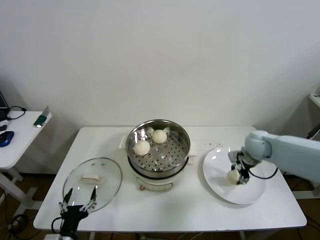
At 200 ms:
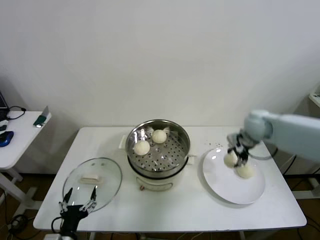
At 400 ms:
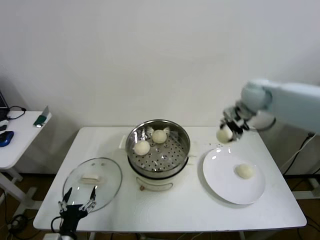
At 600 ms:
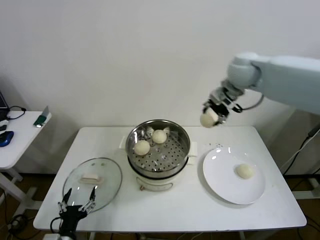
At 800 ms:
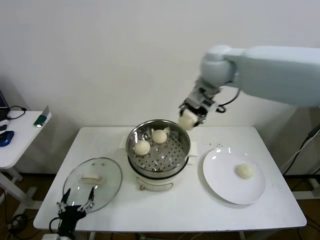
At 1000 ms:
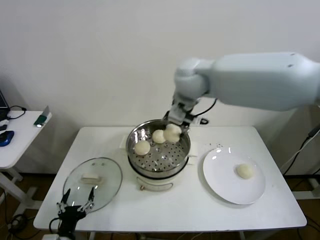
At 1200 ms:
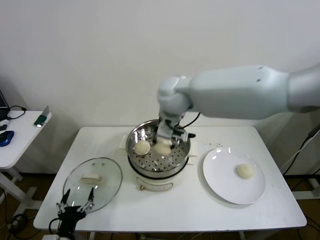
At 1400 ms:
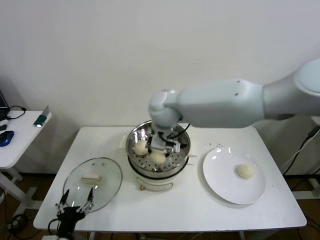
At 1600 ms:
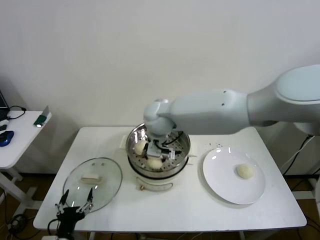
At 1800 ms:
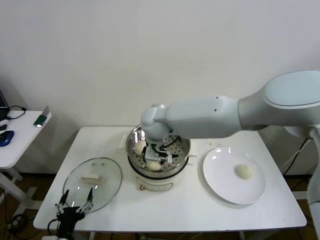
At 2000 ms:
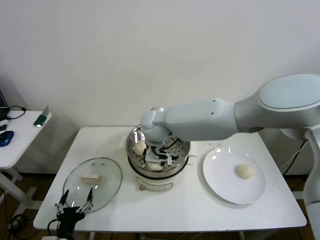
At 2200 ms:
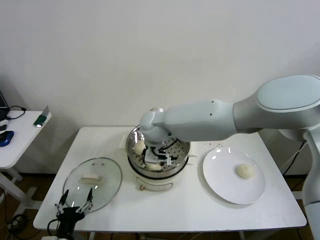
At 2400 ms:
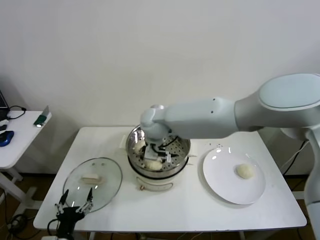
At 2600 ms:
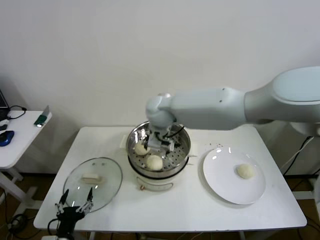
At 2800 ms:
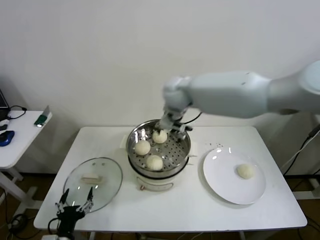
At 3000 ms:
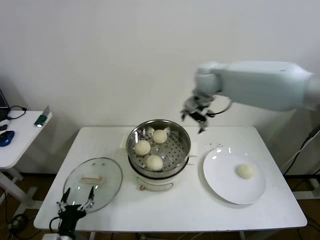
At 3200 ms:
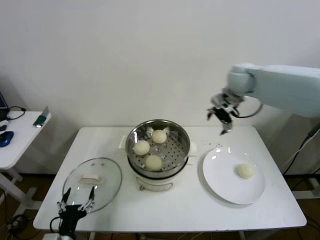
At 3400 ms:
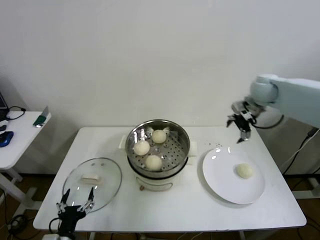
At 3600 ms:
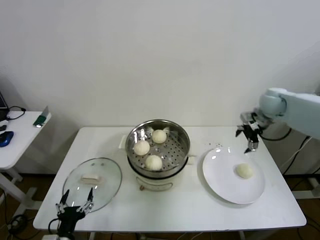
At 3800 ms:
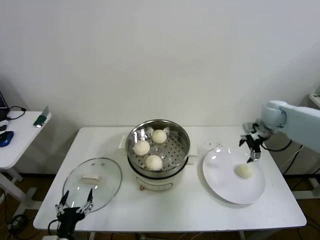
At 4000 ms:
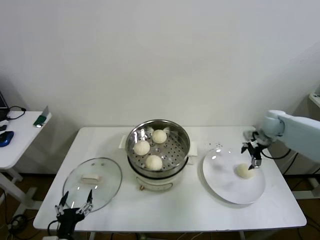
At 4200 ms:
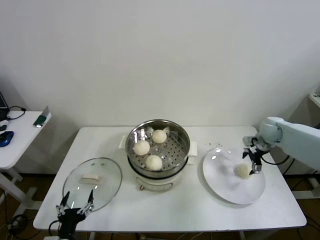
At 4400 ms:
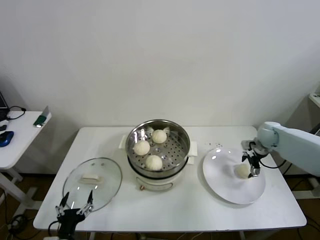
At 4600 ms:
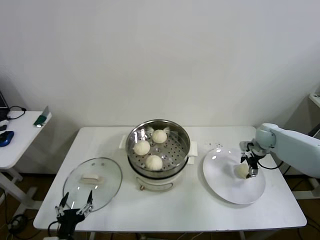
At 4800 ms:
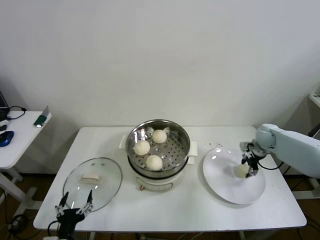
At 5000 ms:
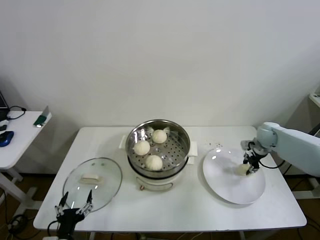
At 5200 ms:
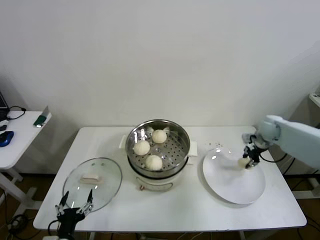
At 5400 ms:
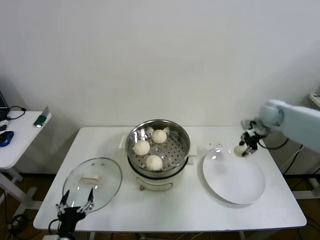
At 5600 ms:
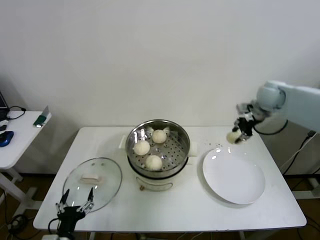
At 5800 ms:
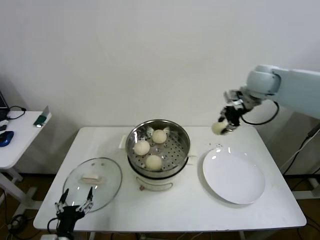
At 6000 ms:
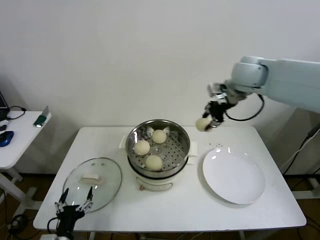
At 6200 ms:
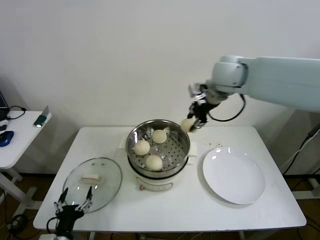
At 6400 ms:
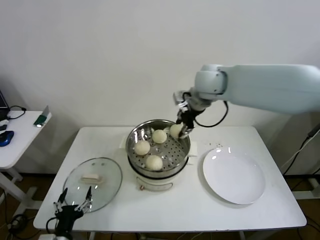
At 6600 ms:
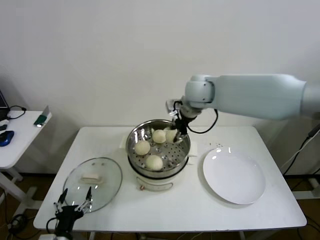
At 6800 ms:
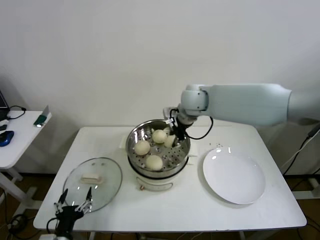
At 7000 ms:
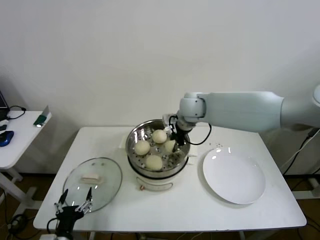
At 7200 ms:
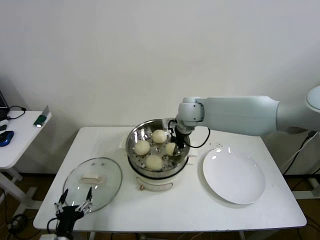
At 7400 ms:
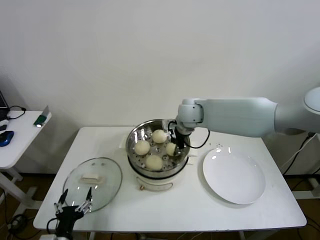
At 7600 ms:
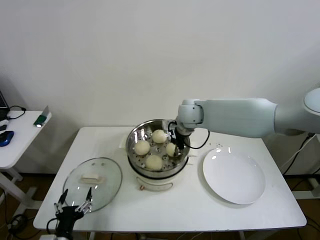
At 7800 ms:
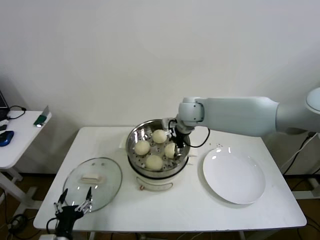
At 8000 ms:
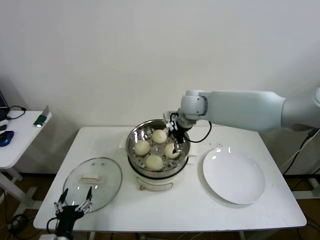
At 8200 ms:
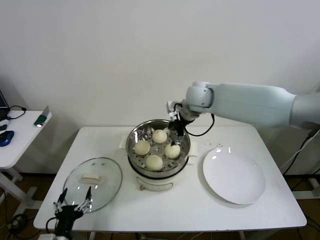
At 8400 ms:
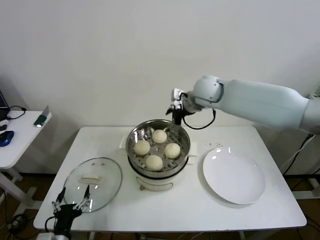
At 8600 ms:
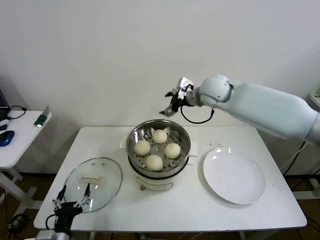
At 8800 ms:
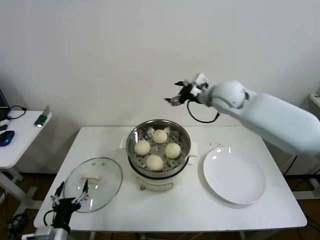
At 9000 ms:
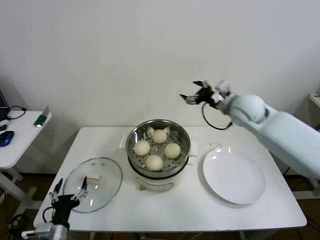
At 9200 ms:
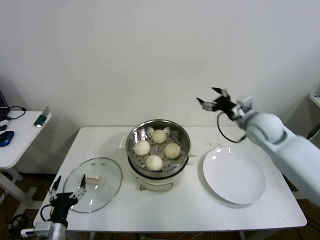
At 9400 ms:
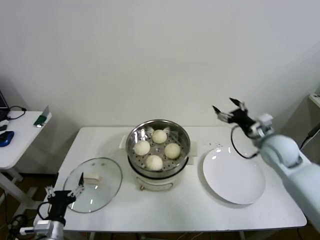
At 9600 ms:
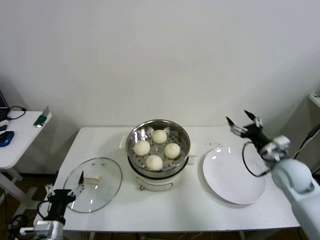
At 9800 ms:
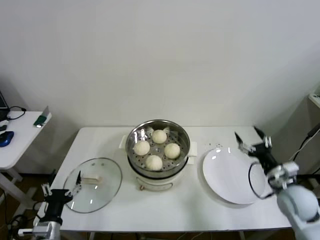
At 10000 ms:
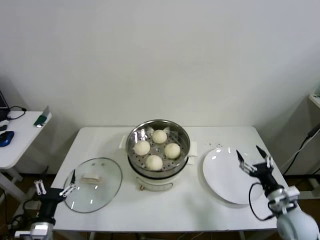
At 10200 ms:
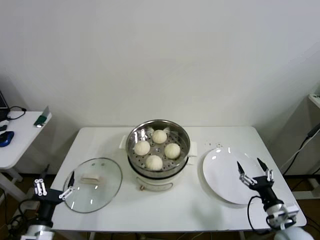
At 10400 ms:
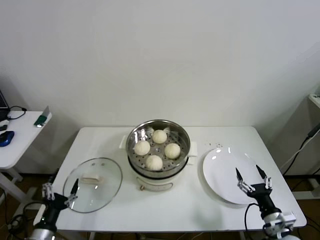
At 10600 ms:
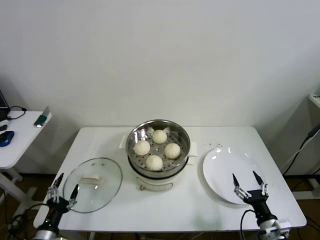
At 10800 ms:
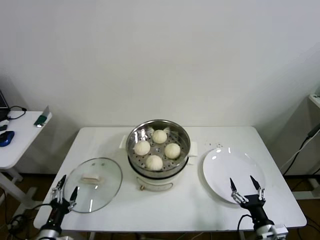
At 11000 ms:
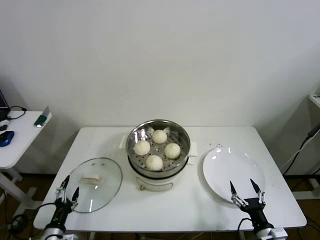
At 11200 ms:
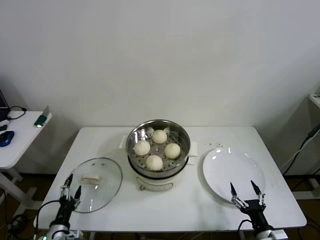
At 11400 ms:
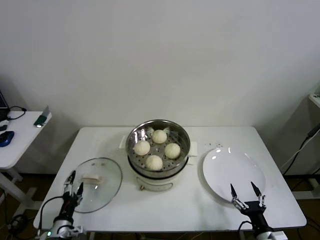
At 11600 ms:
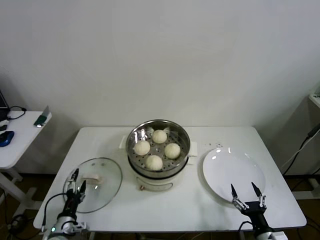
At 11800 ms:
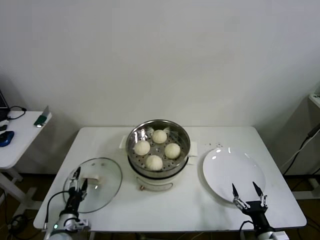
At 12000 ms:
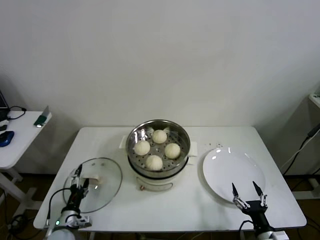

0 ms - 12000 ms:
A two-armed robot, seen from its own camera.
Step, 0 ms - 2400 ms: Place the baozi on the steamer with right gripper.
Step, 2600 ms - 4600 ms: Grasp the baozi in the plate with right gripper.
Step, 4800 ms - 7800 ms: Place the baozi on the steamer with right gripper.
0 ms - 1600 ms: The right gripper is displaced to the left by approximately 35 cm.
1600 ms - 3000 ms: The right gripper moves to the right, forward and upward, some 25 cm, and opens its fingers.
3000 ms - 4400 ms: The right gripper goes some 35 cm downward and to the right.
4400 ms - 6000 ms: The right gripper heads upward and to the left, covering some 35 cm, and closes.
6000 ms - 7600 ms: The right gripper shifts roughly 20 cm downward and to the left, and opens.
7600 ms - 9000 ms: The right gripper is displaced to the right by approximately 15 cm, and opens up.
9000 ms - 10400 ms: The right gripper is displaced backward and downward by some 40 cm. The left gripper heads to the left, covering about 5 cm.
10400 ms - 12000 ms: The left gripper shifts about 10 cm forward and downward; the right gripper moves roughly 5 cm.

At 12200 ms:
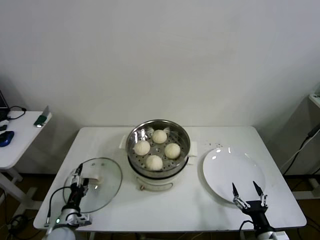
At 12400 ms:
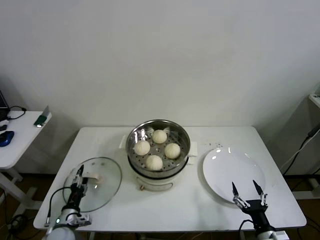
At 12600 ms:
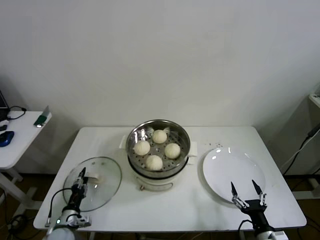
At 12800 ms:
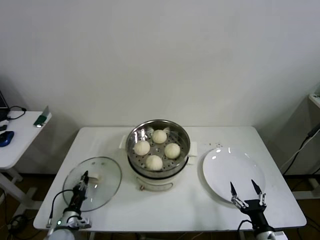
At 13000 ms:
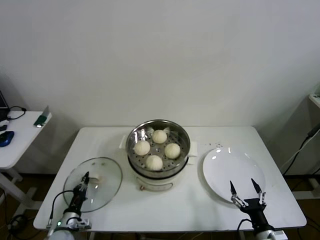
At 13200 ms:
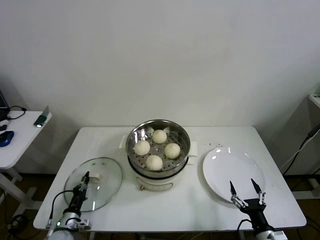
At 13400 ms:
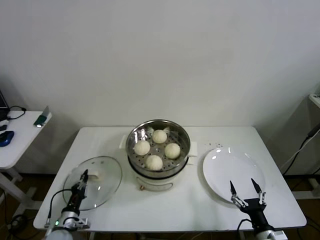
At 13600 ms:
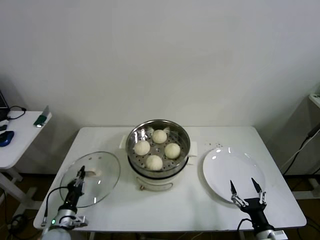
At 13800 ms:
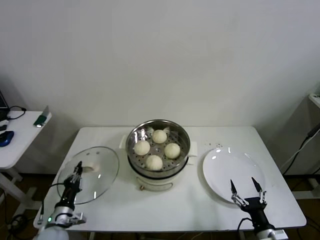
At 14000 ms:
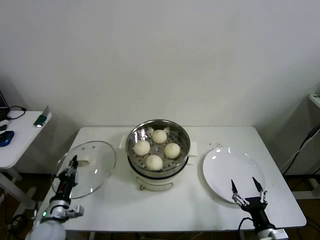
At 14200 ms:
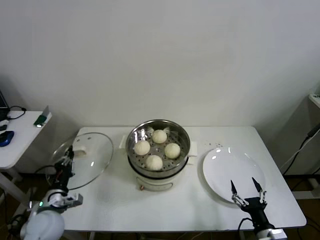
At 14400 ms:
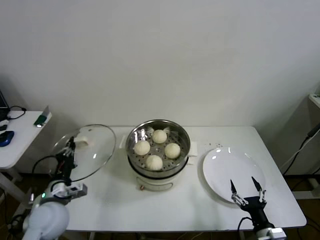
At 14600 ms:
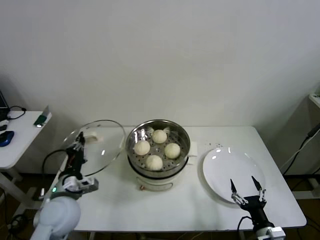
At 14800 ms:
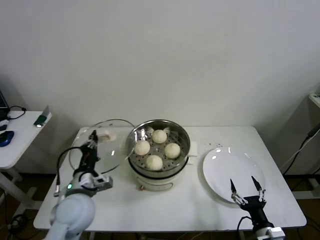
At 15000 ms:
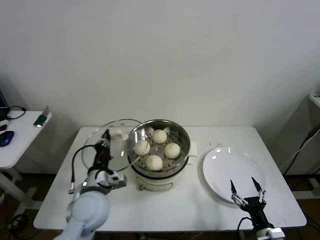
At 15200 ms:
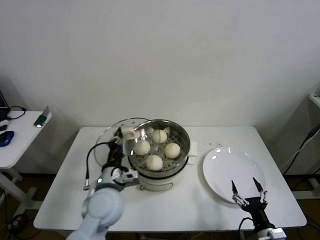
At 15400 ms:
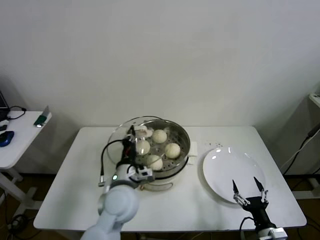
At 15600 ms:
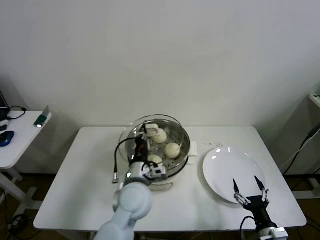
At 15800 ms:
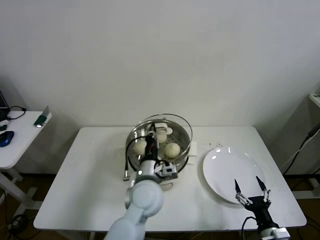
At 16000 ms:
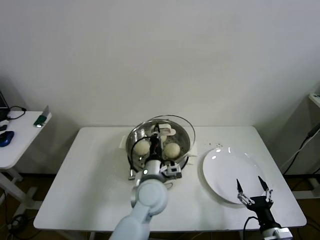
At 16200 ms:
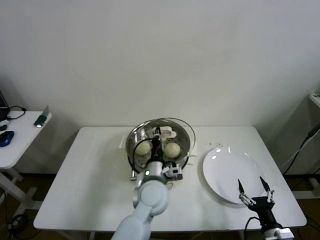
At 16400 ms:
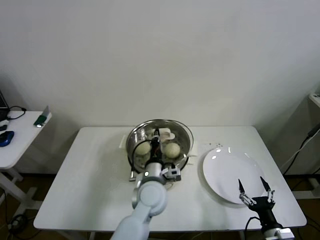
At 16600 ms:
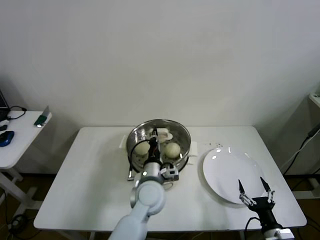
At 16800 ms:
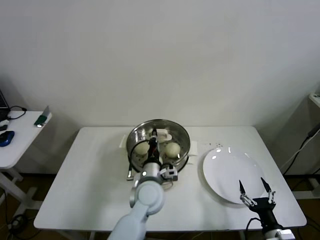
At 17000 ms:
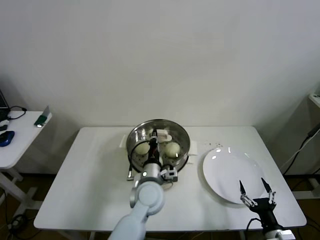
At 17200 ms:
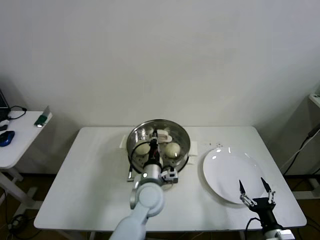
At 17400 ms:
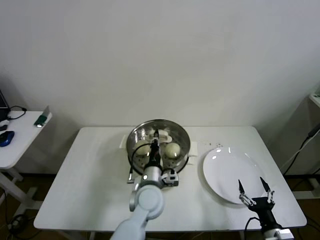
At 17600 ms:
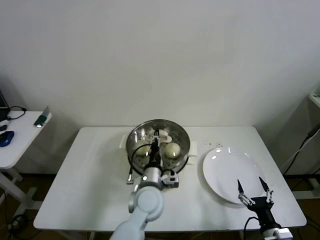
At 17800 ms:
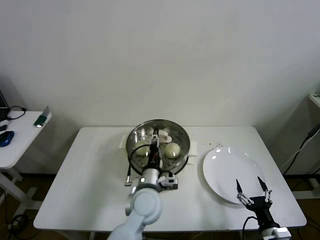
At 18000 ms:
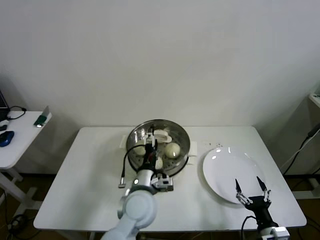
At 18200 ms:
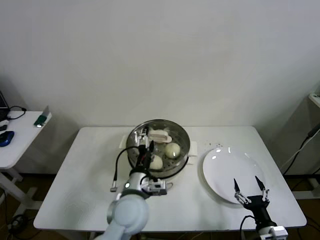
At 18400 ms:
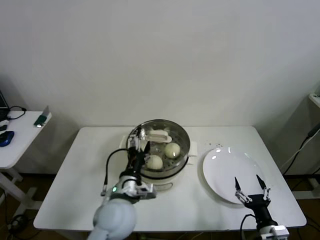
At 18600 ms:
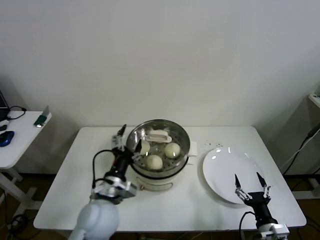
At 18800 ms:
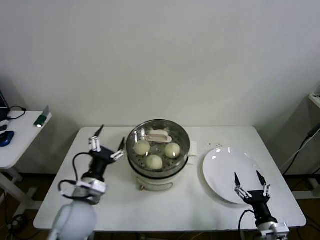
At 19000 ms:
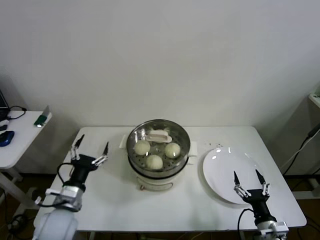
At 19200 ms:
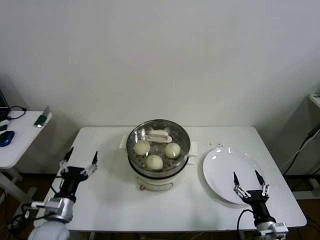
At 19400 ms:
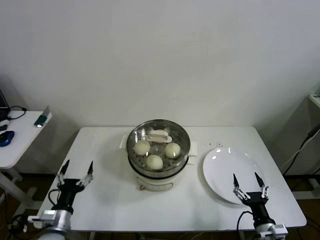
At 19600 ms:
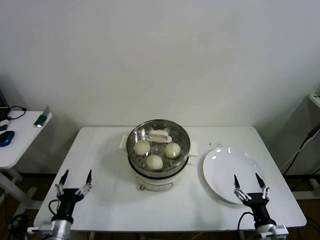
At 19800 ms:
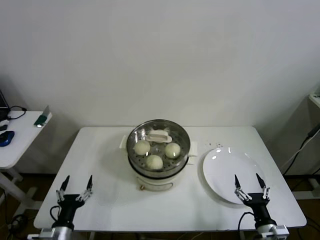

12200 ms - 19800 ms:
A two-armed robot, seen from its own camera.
Step, 13200 ms - 17800 ms: Place the pot lid on the steamer with left gripper.
12200 ms - 13800 ms: The left gripper closes.
13800 ms - 15200 ms: The left gripper heads to the right and upward, covering roughly 25 cm.
15200 ms - 16800 ms: The left gripper is displaced to the right by about 10 cm.
16800 ms - 18200 ms: The left gripper heads backward, covering some 5 cm, and opens up.
18200 ms - 19800 ms: The left gripper travels to the left, downward and backward by about 30 cm.
